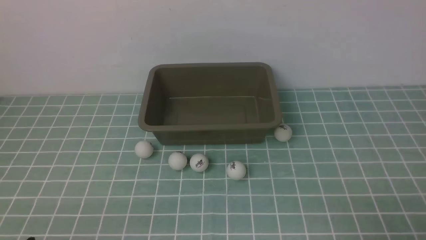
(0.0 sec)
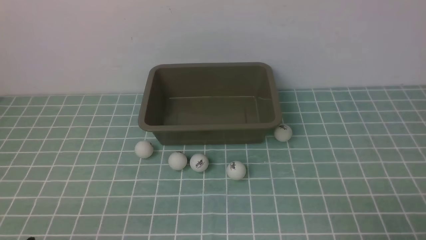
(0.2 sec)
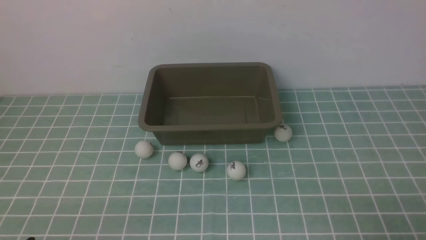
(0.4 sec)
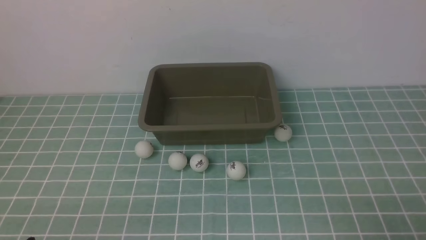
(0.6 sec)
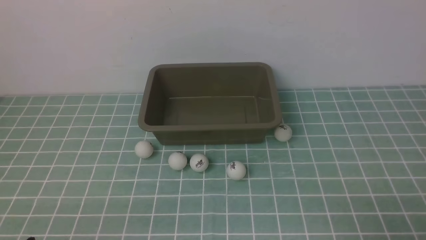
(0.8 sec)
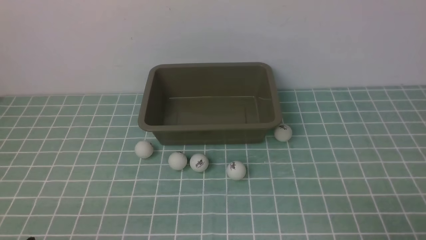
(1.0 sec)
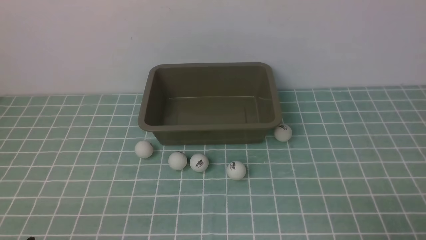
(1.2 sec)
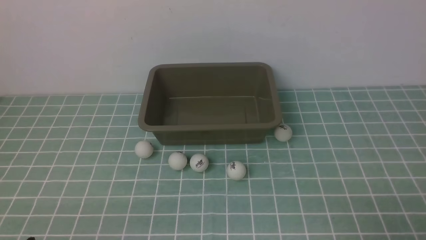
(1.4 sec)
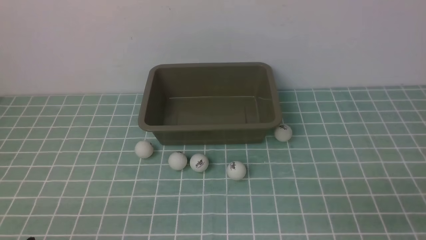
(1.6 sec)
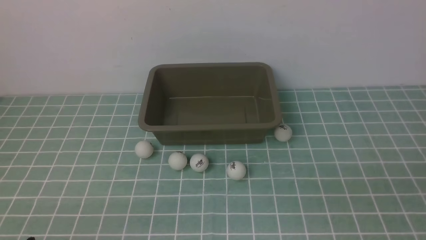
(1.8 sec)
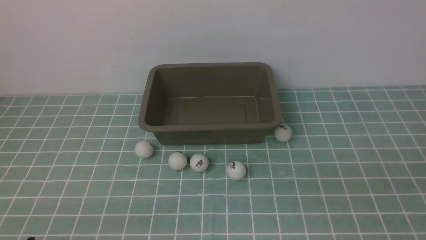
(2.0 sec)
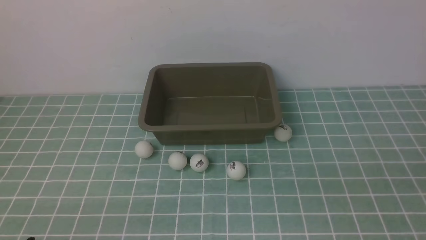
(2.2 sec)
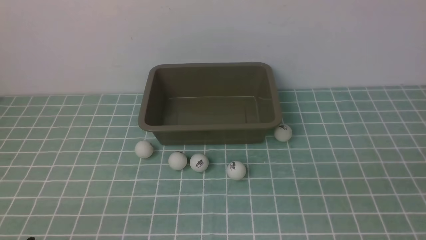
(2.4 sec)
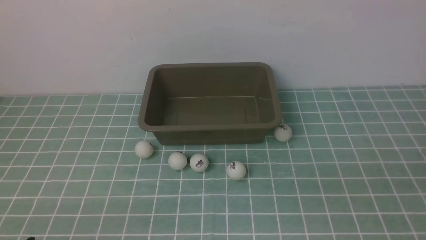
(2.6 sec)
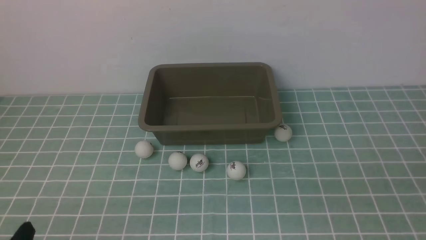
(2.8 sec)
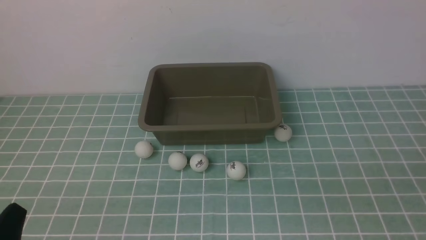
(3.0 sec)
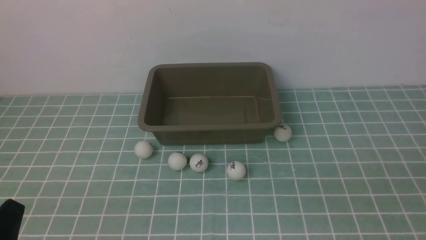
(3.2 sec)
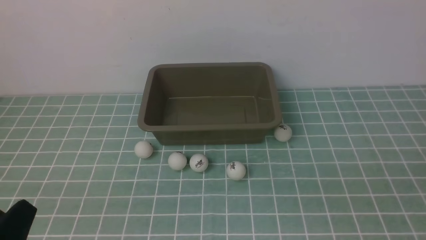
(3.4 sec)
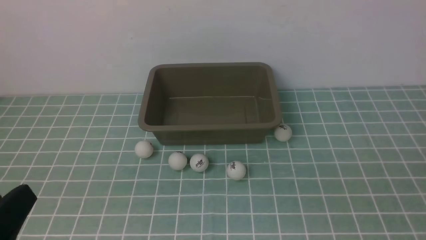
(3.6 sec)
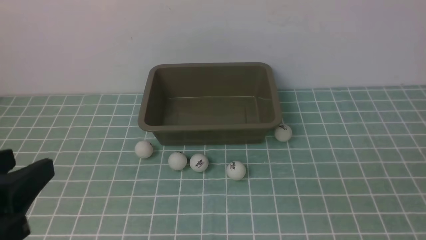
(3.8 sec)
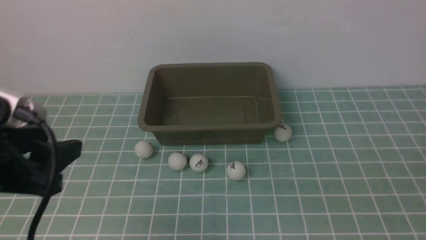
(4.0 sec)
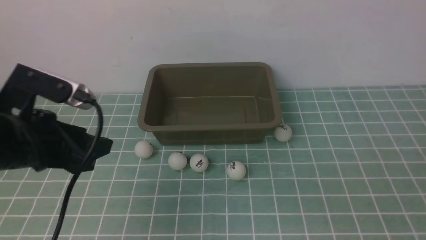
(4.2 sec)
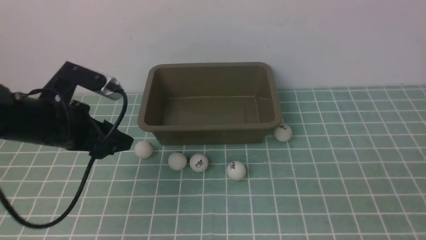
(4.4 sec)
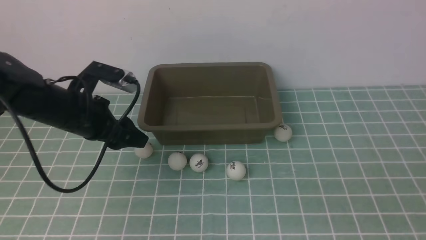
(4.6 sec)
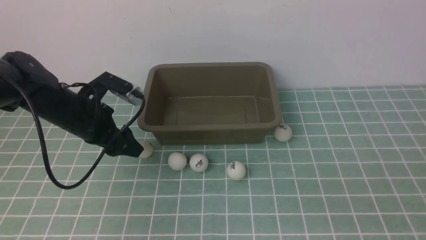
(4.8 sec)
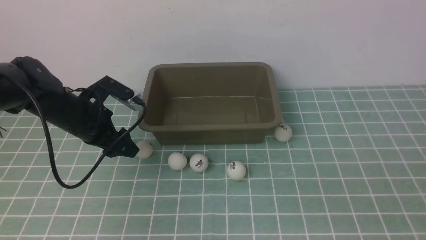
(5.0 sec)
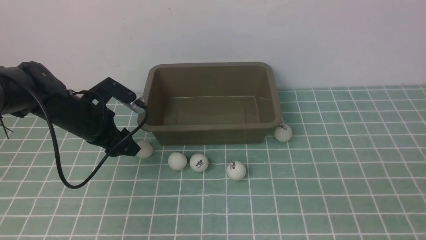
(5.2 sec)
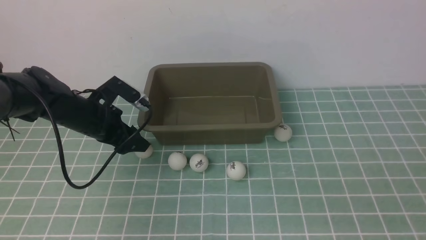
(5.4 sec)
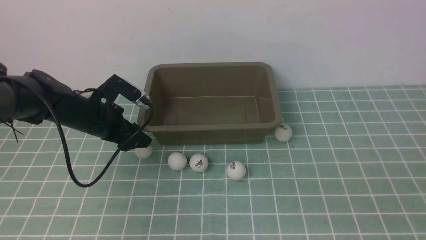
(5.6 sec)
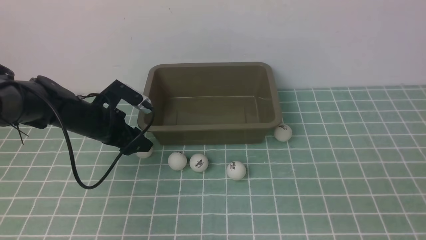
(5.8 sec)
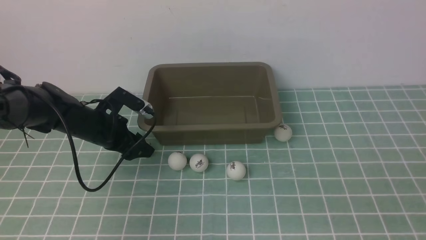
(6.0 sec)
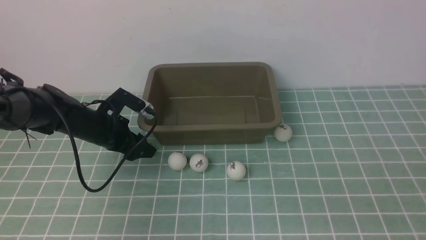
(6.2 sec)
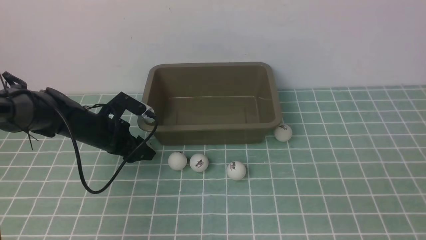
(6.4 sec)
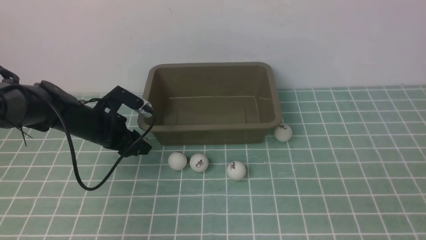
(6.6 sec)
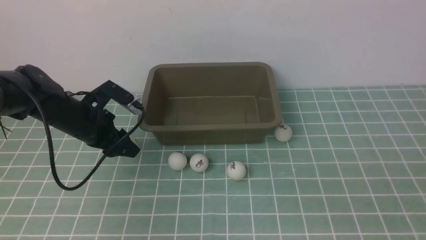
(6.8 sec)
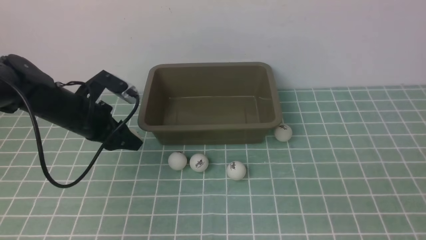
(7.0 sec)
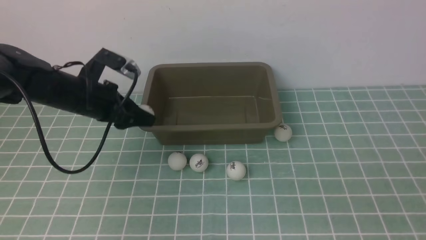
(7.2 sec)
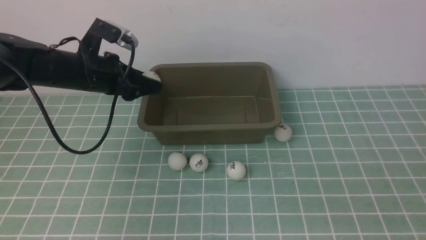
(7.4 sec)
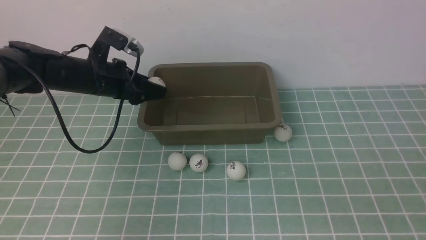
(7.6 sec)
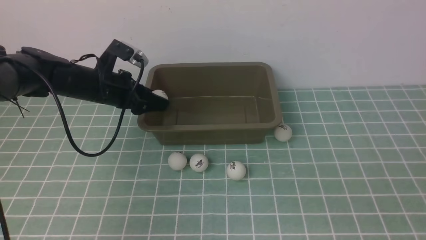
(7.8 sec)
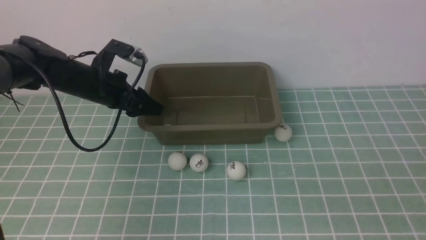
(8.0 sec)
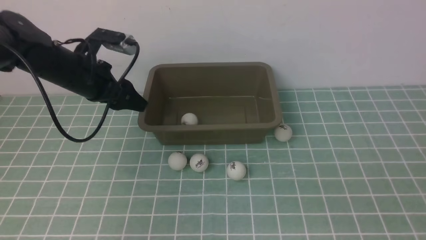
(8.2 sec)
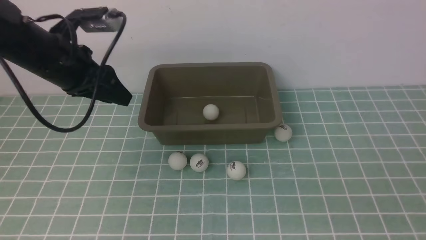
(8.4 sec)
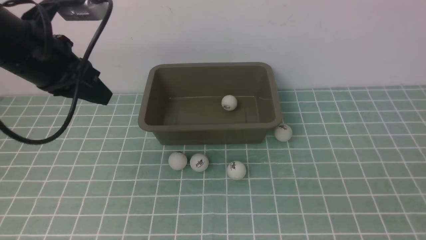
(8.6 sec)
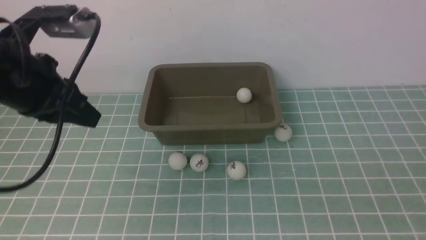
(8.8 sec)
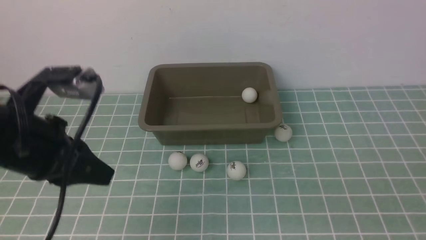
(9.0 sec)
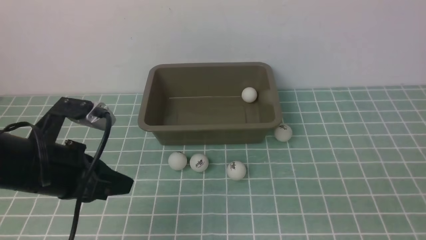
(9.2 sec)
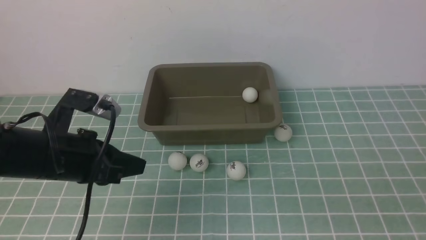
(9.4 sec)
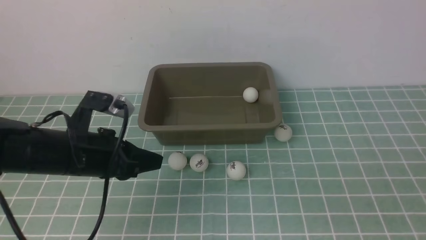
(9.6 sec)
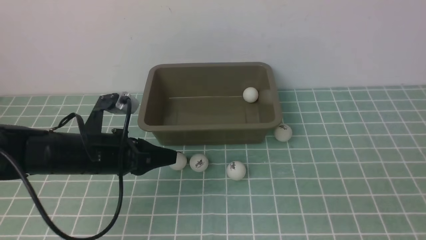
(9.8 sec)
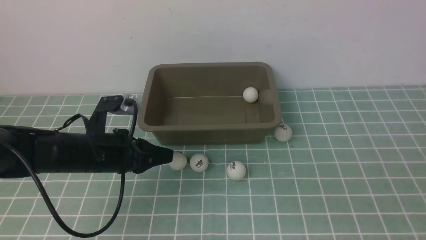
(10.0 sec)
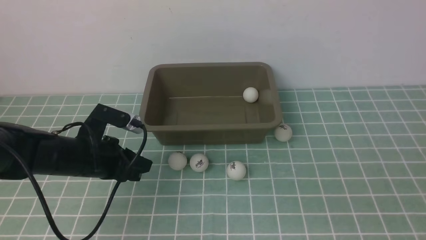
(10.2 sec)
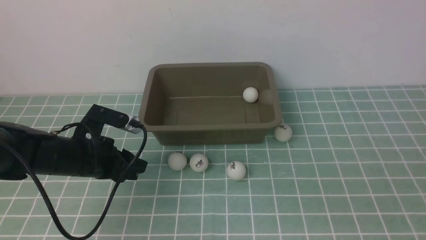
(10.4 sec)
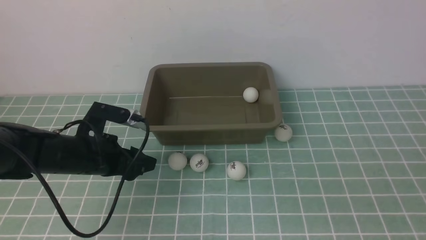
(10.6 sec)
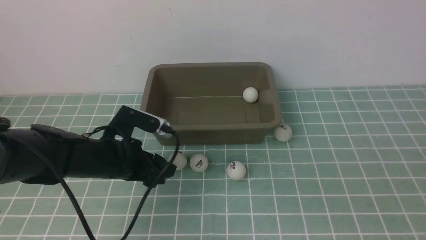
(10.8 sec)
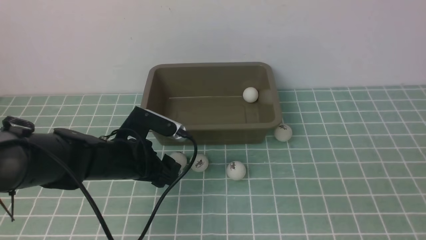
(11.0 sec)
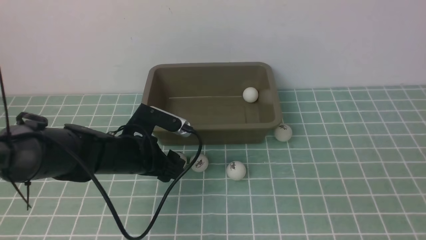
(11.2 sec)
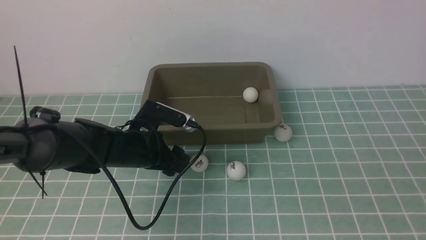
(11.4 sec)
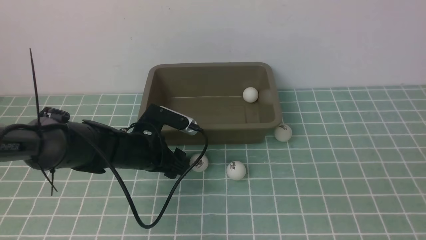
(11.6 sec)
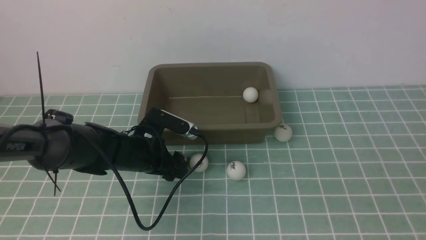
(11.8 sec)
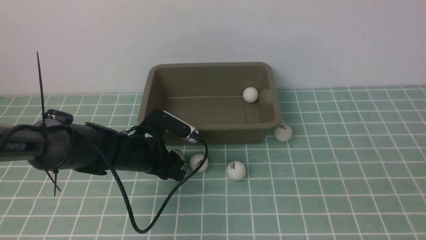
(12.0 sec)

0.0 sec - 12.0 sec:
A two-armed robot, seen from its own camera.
Step, 0.0 sec - 6.8 sec: use the left arm to clamp the table tennis ball closest to it.
Step, 7.0 sec - 8.0 sec: use the left arm to put the table tennis ball into the box.
3.0 sec - 4.4 sec: The left gripper shifts roughly 25 cm forward.
4.4 sec - 6.0 sec: The left gripper shifts approximately 15 cm downward and forward.
6.0 sec - 7.6 sec: The left gripper is displaced upward by roughly 10 cm.
7.6 sec - 9.0 sec: The left gripper moves backward and upward, about 20 cm, and closes.
9.0 sec - 10.4 sec: The left gripper heads downward and forward, covering approximately 15 cm, and opens.
10.4 sec - 12.0 sec: The left gripper shifts approximately 5 cm to the right.

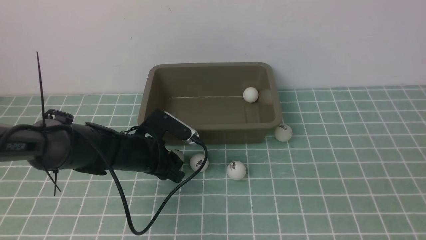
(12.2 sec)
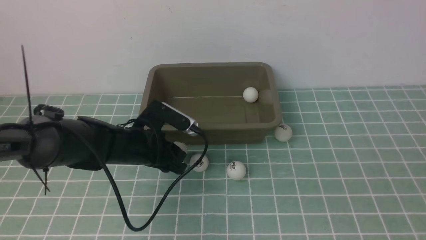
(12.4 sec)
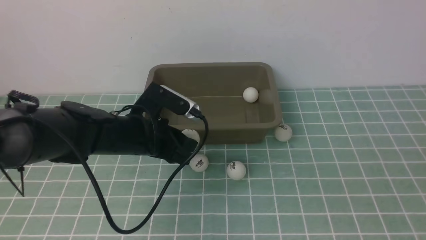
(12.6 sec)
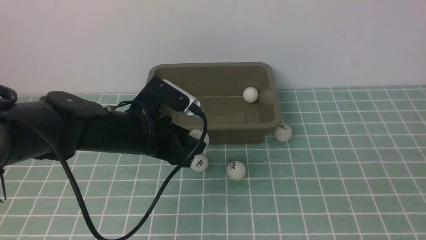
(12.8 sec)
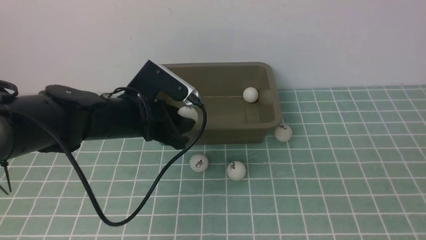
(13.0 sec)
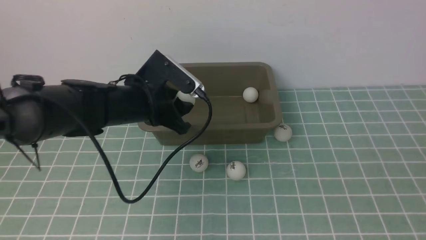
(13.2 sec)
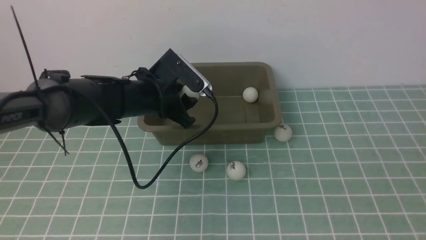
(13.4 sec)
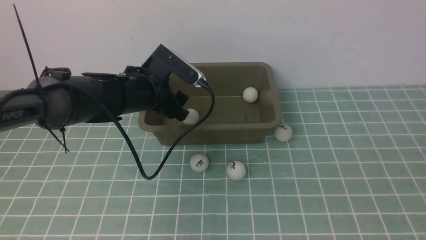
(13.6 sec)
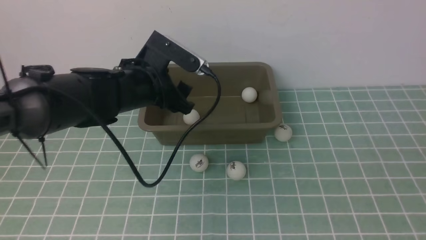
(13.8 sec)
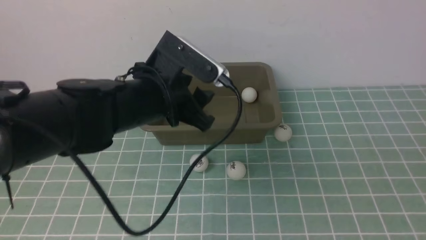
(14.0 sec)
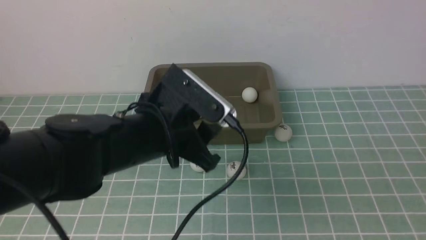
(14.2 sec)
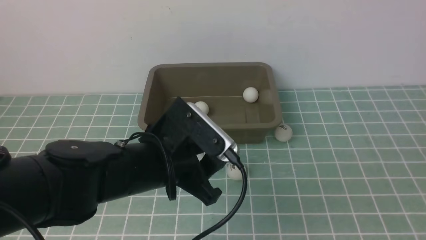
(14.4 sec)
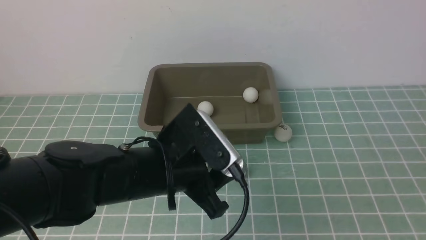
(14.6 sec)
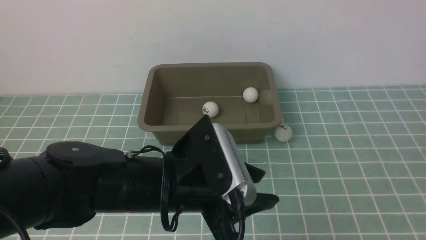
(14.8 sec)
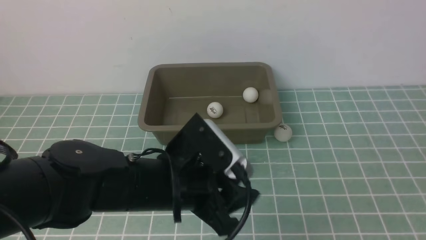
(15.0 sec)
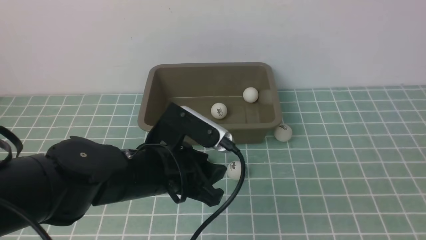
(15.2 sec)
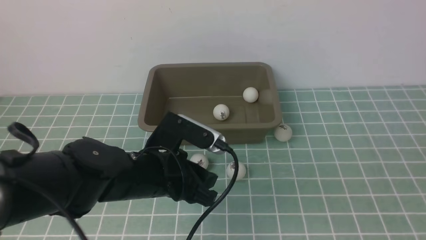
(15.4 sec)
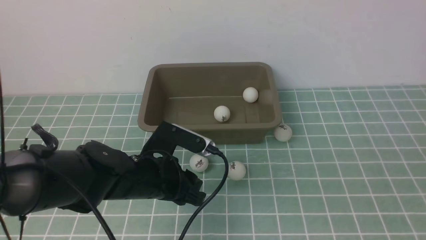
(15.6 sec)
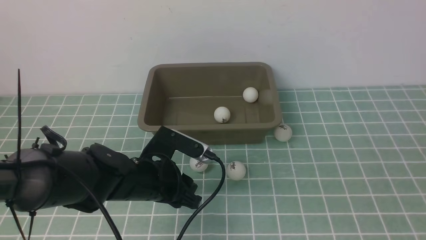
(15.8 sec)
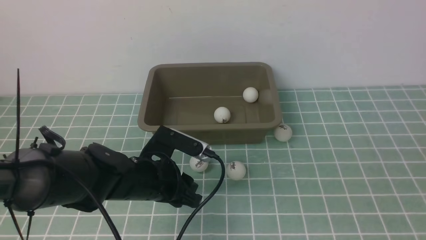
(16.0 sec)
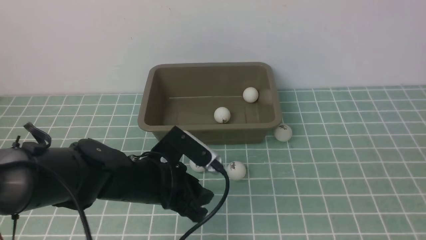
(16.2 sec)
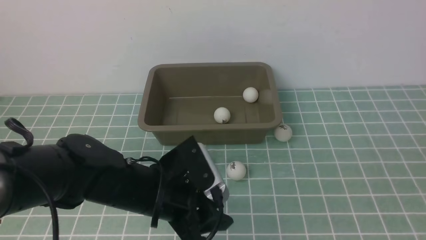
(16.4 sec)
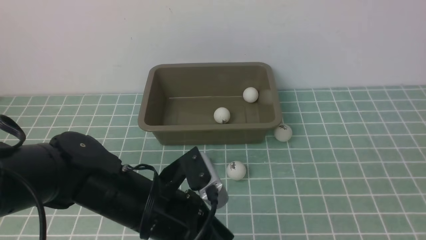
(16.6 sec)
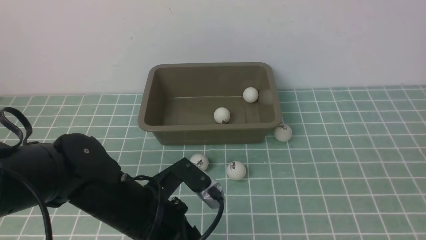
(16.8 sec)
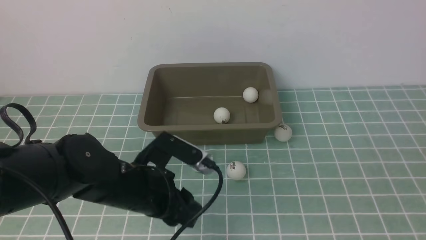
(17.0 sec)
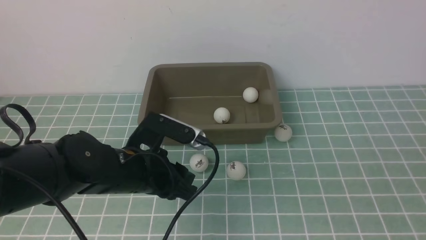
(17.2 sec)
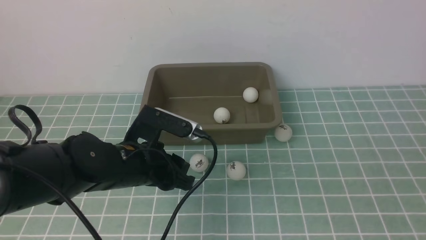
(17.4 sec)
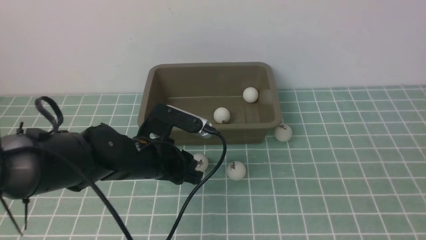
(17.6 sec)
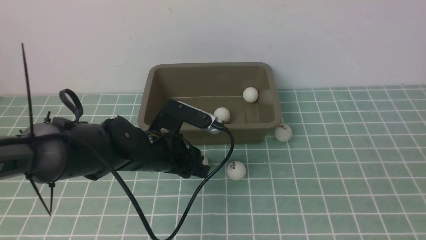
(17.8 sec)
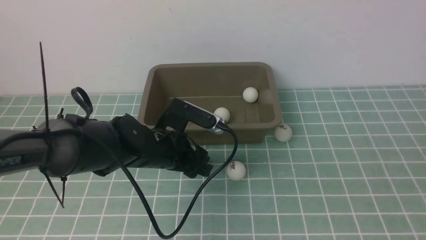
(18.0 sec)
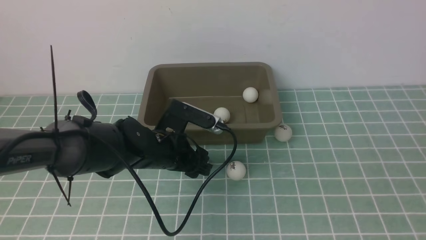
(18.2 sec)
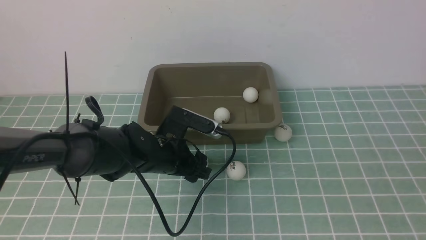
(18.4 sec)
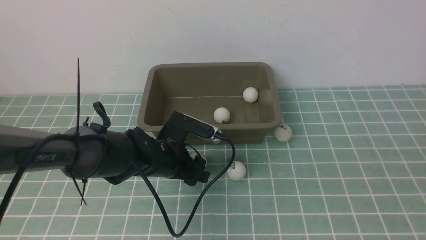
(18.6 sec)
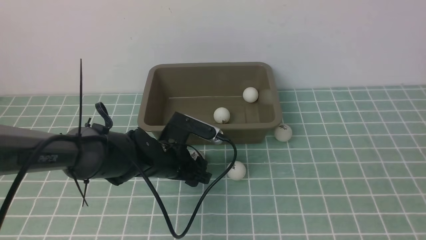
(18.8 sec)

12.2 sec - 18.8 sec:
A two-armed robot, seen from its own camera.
Step, 12.8 sec - 13.6 sec: use the left arm to put the table tennis ball into the box.
12.2 sec - 13.8 sec: The left gripper goes some 10 cm upward.
13.8 sec - 15.4 sec: The left gripper shifts approximately 10 cm backward and downward.
17.2 sec - 18.8 sec: The left gripper travels forward and downward by approximately 10 cm, and opens up.
